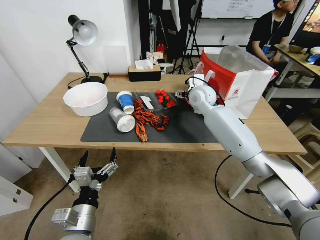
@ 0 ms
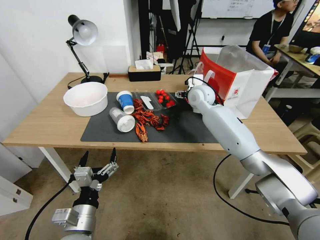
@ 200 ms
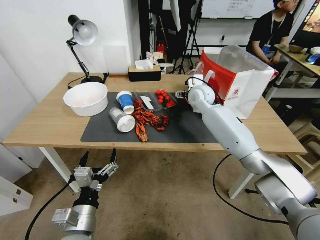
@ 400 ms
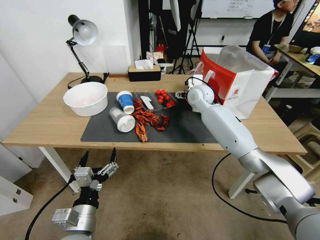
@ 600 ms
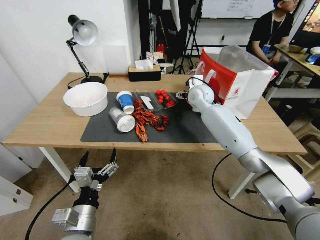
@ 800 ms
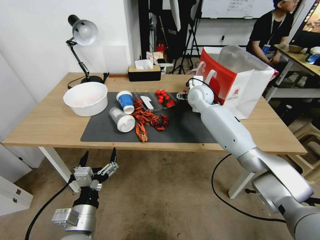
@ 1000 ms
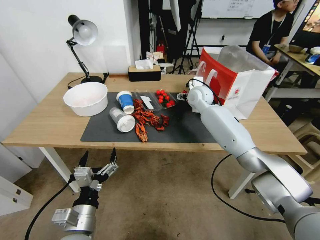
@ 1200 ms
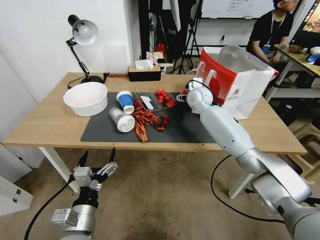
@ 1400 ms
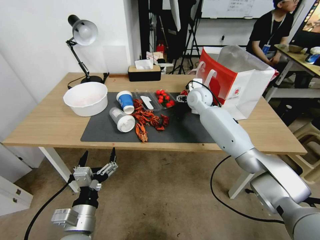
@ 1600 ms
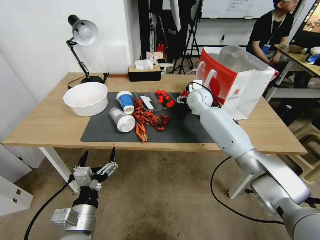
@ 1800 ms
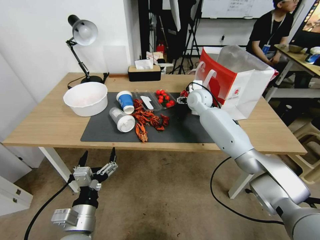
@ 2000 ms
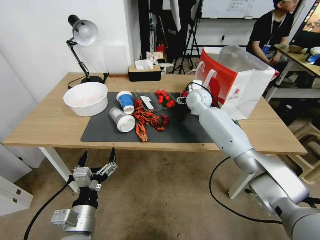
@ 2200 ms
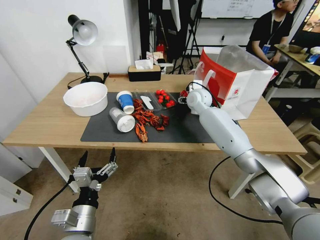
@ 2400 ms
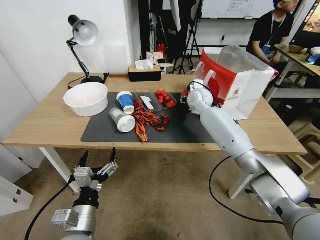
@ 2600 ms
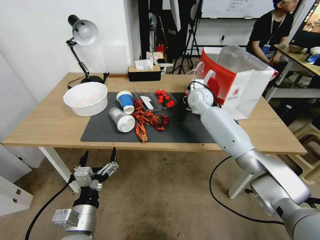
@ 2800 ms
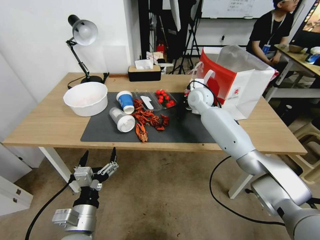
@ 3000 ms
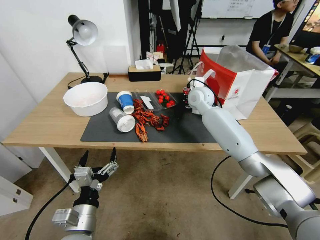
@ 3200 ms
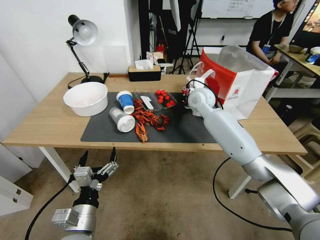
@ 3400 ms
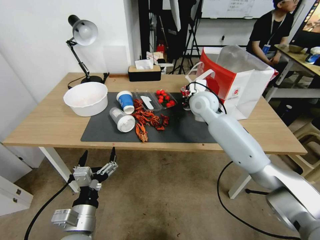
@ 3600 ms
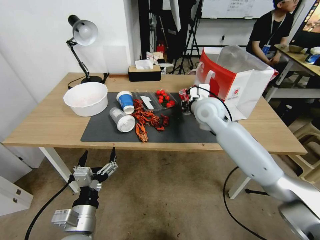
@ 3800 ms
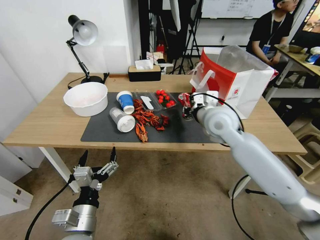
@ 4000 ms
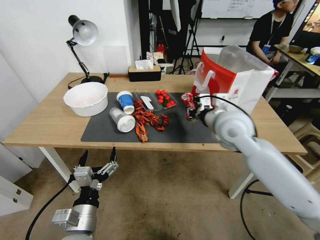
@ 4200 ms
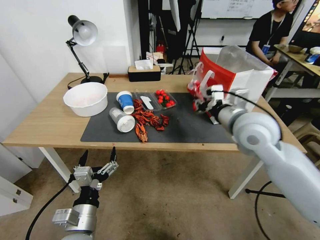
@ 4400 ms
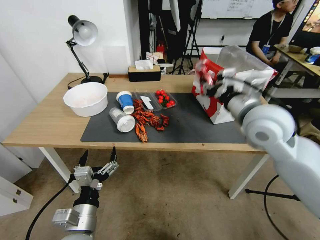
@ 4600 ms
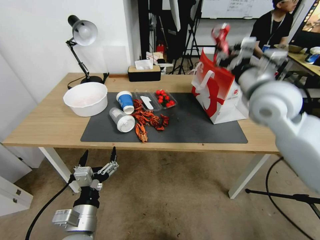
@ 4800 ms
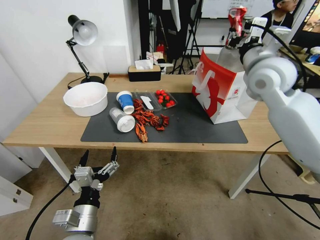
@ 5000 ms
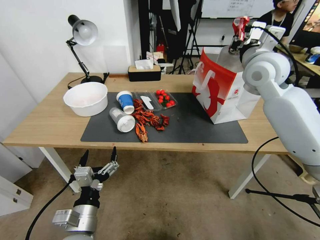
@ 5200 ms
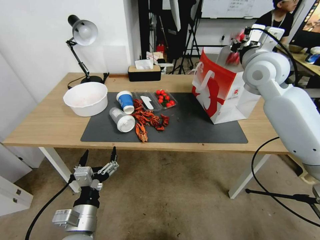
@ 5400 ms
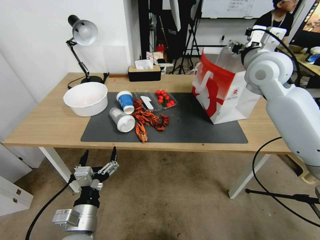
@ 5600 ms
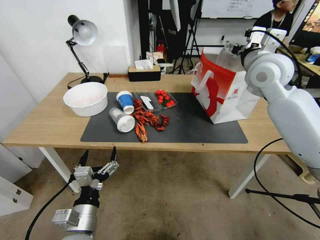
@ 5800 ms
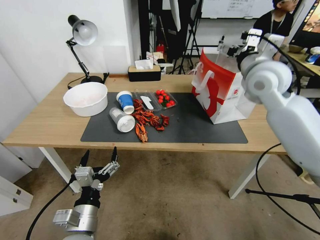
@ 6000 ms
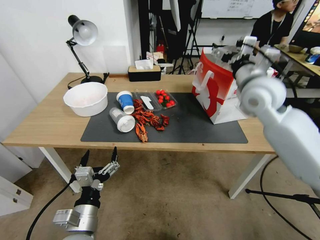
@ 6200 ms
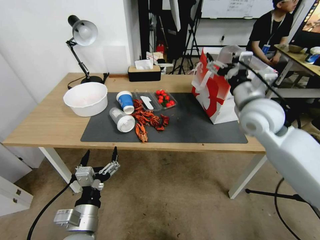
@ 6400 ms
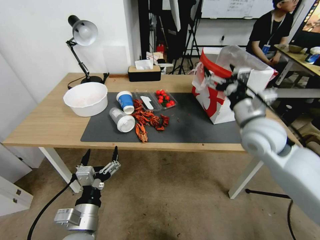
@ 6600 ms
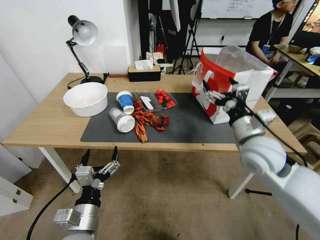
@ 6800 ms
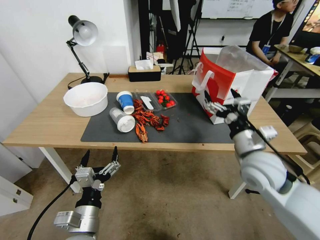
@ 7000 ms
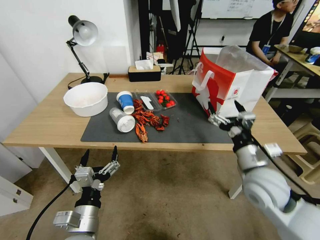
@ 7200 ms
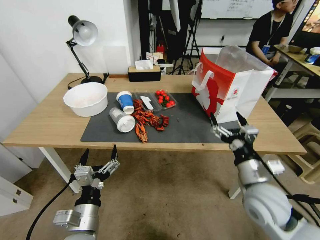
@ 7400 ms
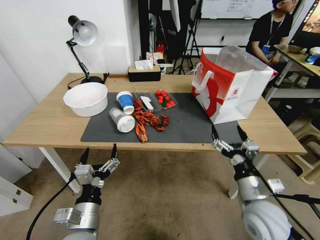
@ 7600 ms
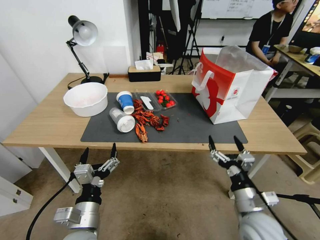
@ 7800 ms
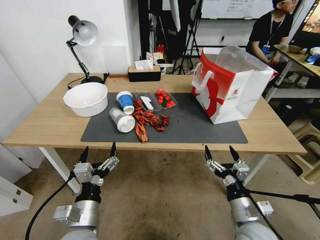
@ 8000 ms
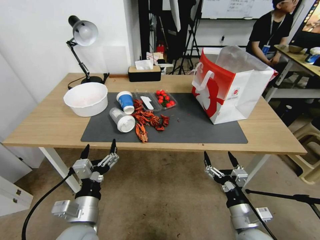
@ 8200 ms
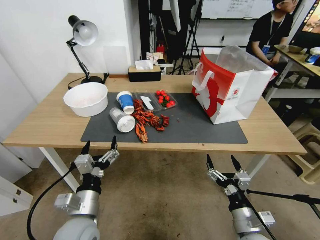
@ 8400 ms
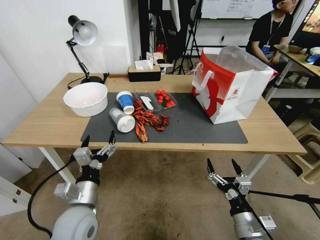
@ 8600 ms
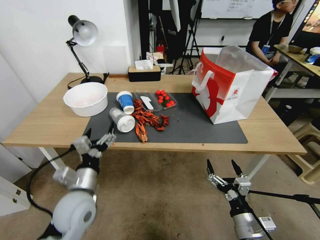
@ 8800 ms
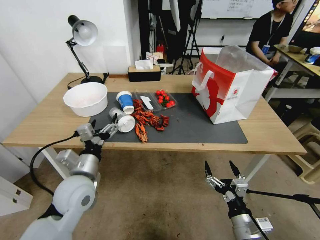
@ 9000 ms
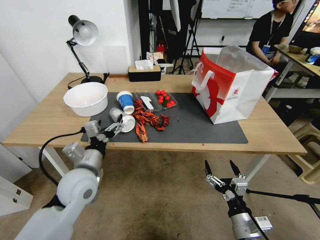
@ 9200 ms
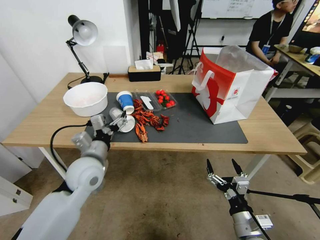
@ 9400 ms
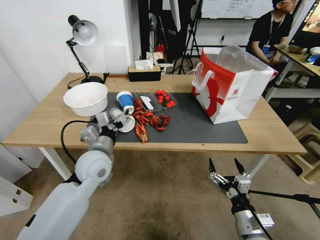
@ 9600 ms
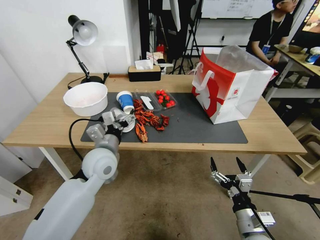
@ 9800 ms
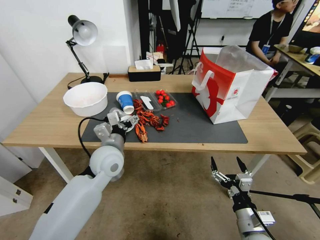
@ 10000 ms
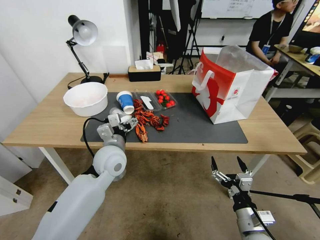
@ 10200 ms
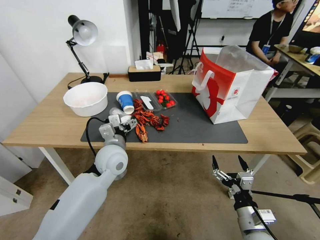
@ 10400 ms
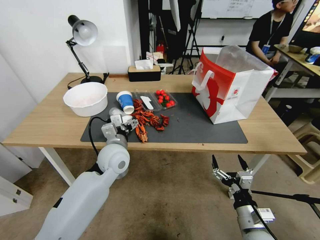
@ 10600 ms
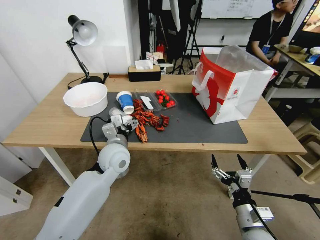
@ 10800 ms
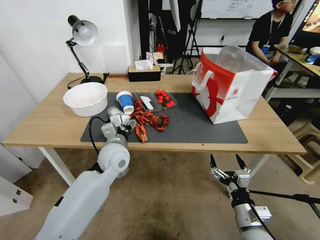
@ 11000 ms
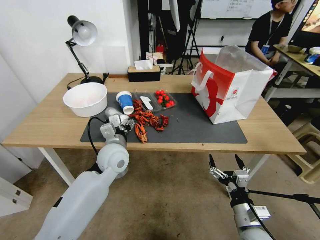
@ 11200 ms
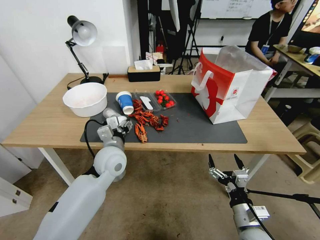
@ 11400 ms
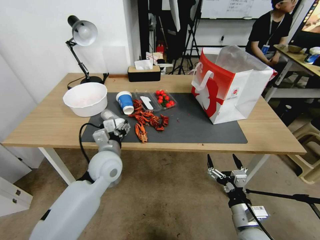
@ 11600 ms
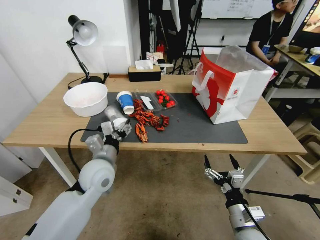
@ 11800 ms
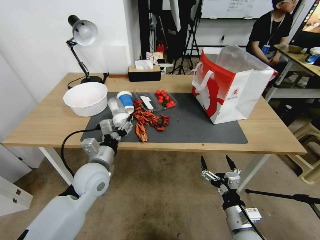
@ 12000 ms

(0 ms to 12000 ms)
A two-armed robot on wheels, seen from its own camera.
0 ms - 1600 ms: The grippers stay close to where they were, moving slightly.
1600 ms - 3000 ms: The right gripper closes.
3000 ms - 4400 ms: The right gripper goes roughly 25 cm backward.
4400 ms - 6000 ms: The right gripper goes some 15 cm forward and upward, and opens up.
6000 ms - 7600 ms: The right gripper travels downward and backward by about 35 cm.
7600 ms - 9000 ms: The left gripper heads forward and upward, covering roughly 15 cm. Meanwhile the right gripper is displaced downward and backward by roughly 10 cm.
9000 ms - 10400 ms: The left gripper is displaced forward and to the right by roughly 10 cm.
10400 ms - 12000 ms: The left gripper is displaced backward by some 5 cm, and closes up.

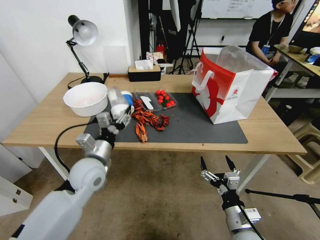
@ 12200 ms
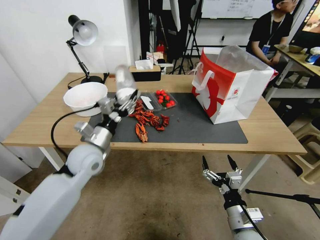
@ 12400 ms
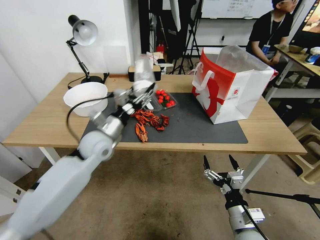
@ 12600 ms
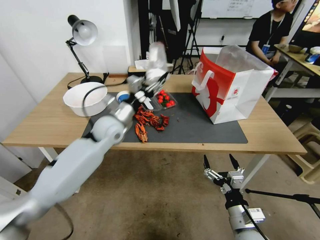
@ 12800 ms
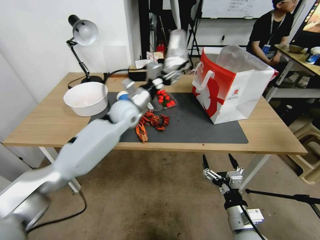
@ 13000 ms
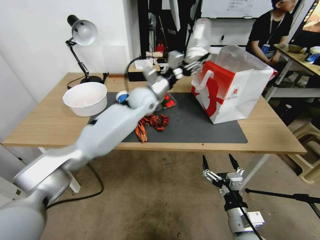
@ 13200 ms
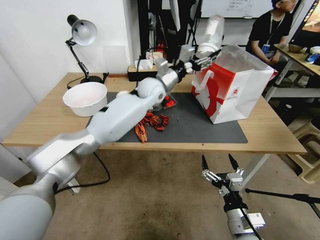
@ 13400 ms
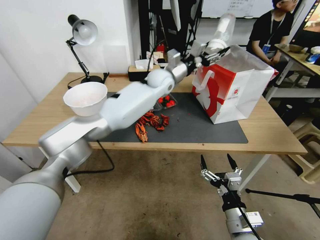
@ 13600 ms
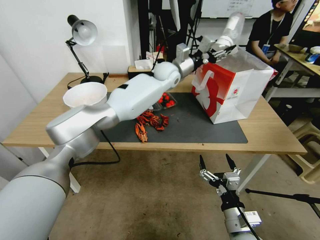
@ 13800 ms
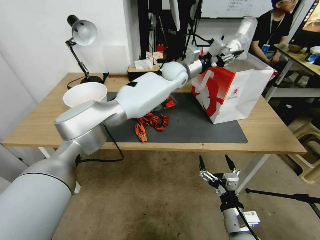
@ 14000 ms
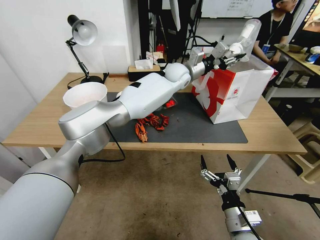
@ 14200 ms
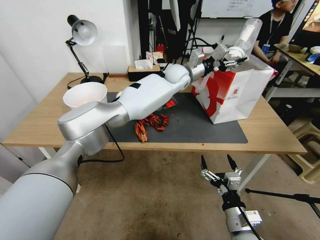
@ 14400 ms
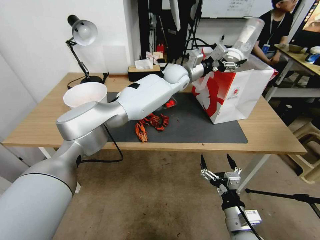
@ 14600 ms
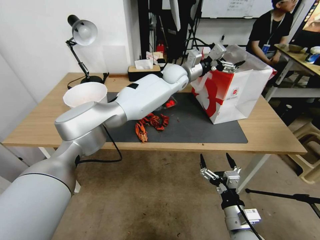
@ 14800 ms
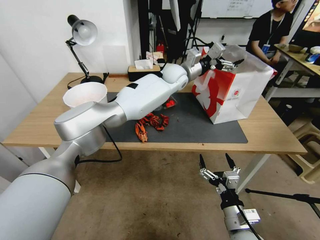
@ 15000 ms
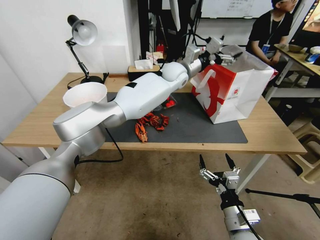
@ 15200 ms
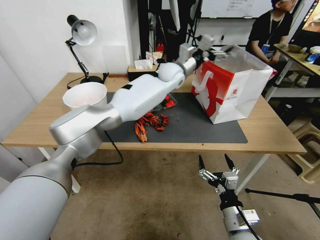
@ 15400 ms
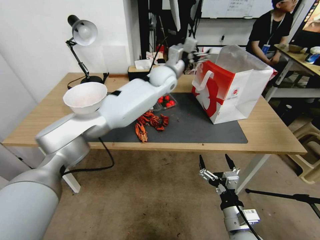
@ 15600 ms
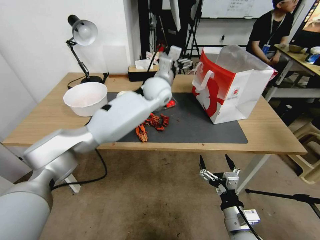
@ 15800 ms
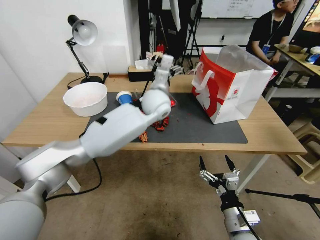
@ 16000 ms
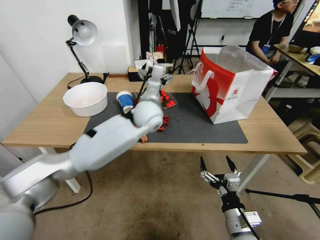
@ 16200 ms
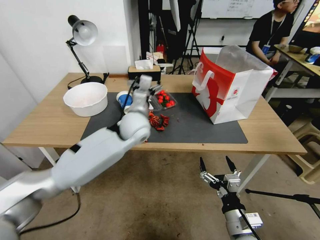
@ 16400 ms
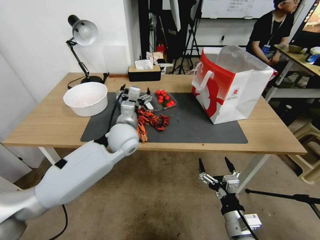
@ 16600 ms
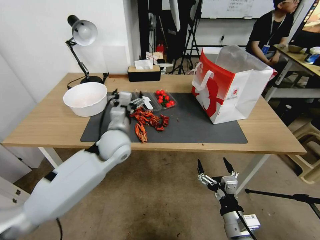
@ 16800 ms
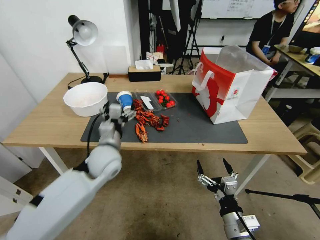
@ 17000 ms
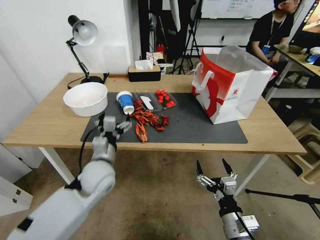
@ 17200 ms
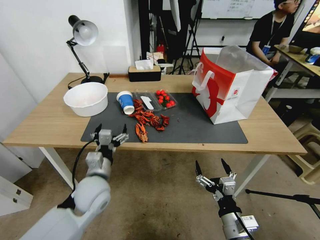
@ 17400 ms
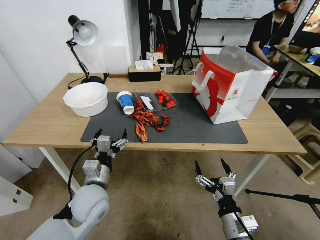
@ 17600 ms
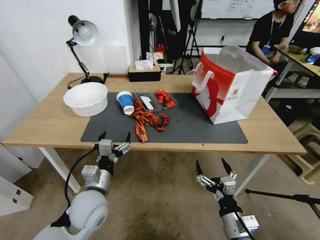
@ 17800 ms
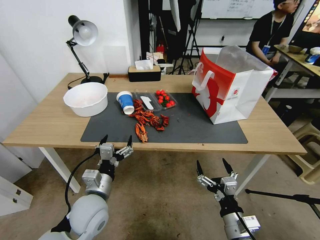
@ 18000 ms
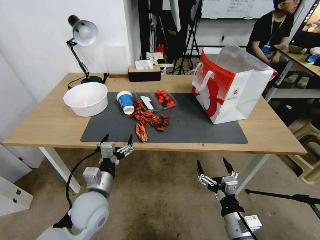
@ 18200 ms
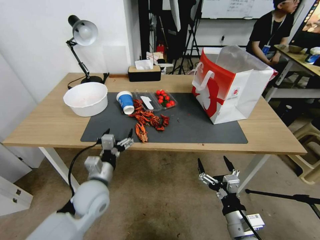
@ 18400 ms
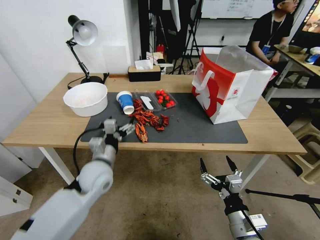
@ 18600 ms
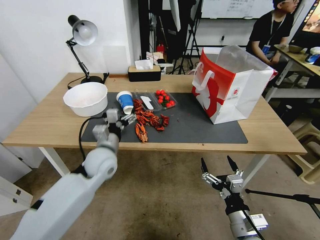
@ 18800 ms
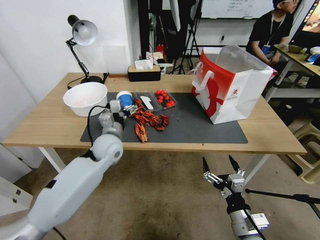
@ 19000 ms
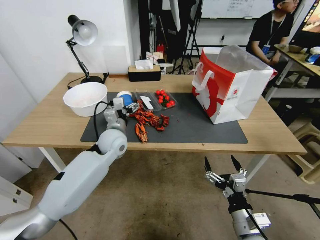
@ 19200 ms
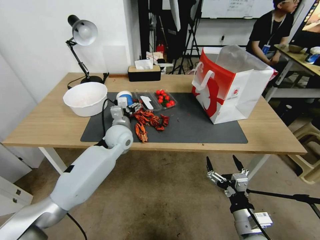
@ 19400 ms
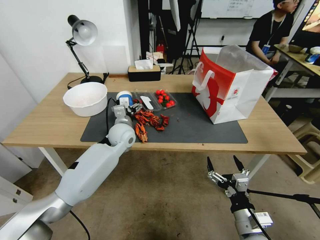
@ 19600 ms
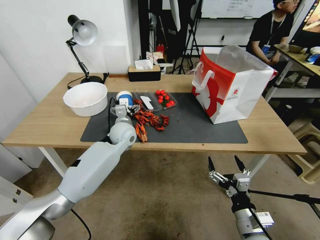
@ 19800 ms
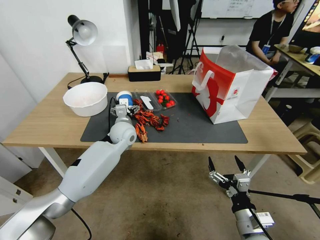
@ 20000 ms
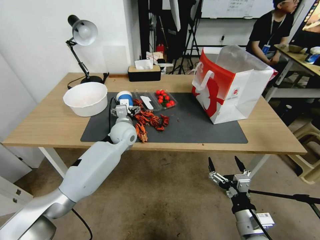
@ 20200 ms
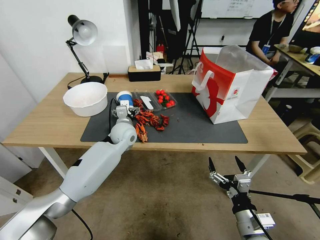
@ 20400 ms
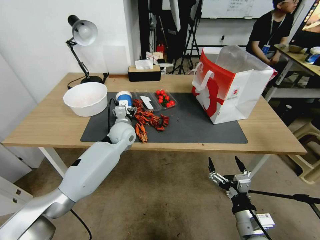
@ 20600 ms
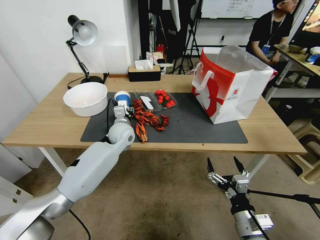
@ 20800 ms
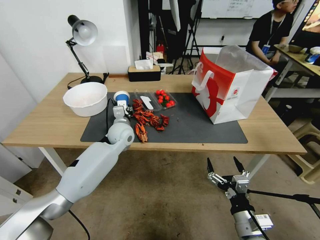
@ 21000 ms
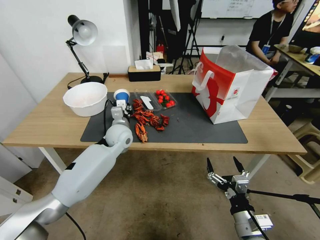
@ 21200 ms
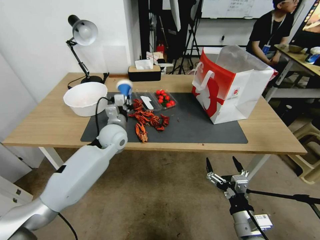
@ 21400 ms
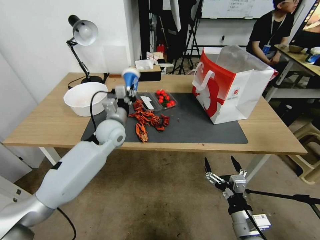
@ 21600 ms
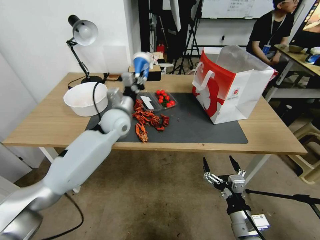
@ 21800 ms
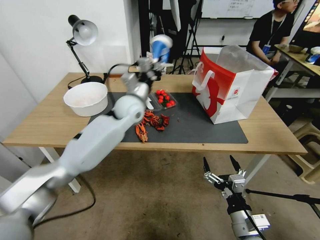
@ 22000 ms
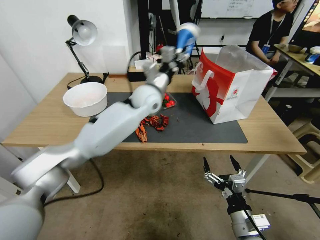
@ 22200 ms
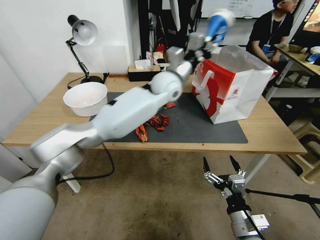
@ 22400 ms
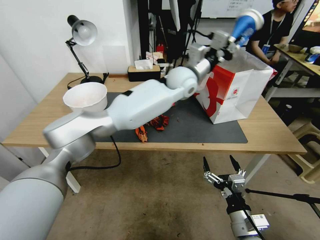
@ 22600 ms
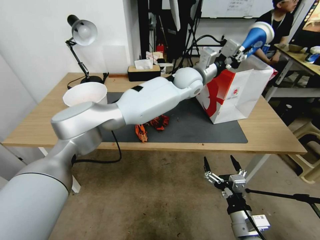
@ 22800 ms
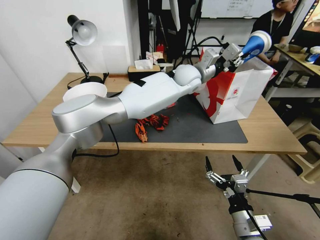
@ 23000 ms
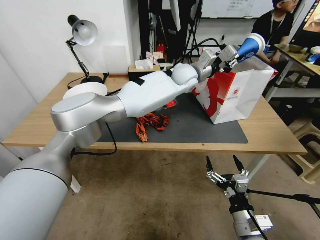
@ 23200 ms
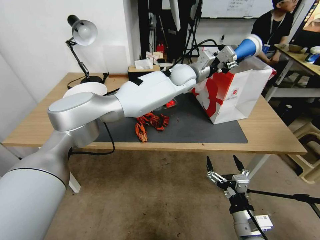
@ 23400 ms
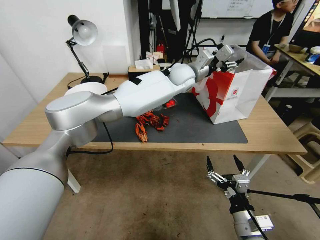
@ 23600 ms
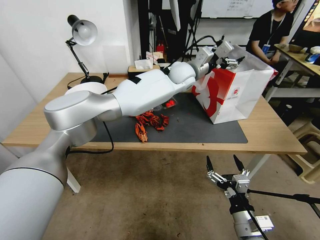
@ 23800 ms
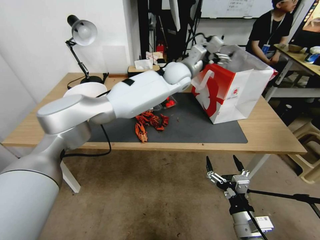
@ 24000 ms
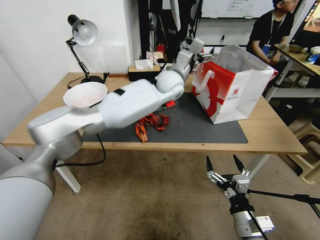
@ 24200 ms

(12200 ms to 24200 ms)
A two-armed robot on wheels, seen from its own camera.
12200 ms - 13800 ms: The left gripper heads forward, to the right and upward, covering approximately 40 cm.
13800 ms - 15200 ms: The left gripper opens up.
15200 ms - 16600 ms: The left gripper heads backward, to the left and downward, covering approximately 30 cm.
16600 ms - 18200 ms: The left gripper moves backward, downward and to the left, roughly 20 cm.
18200 ms - 19800 ms: The left gripper goes approximately 25 cm forward.
19800 ms - 21200 ms: The left gripper closes up.
21200 ms - 22600 ms: The left gripper travels to the right and upward by approximately 30 cm.
22600 ms - 24200 ms: The left gripper opens.
